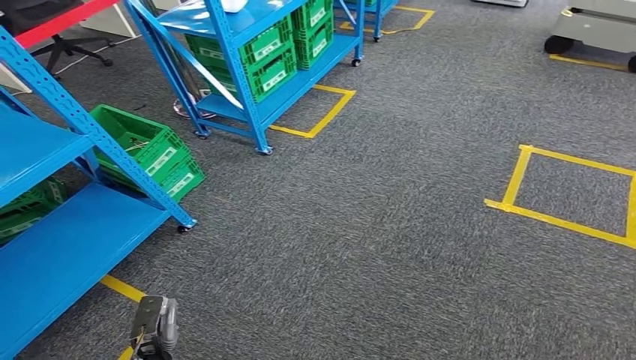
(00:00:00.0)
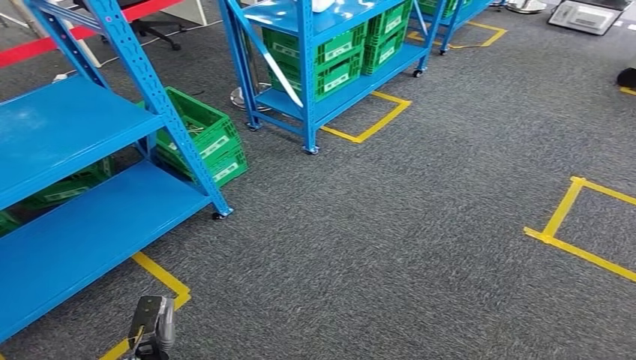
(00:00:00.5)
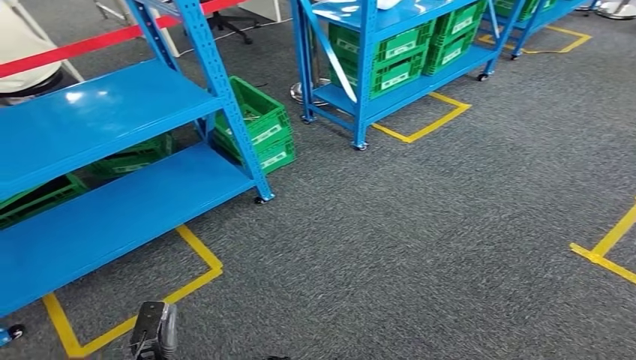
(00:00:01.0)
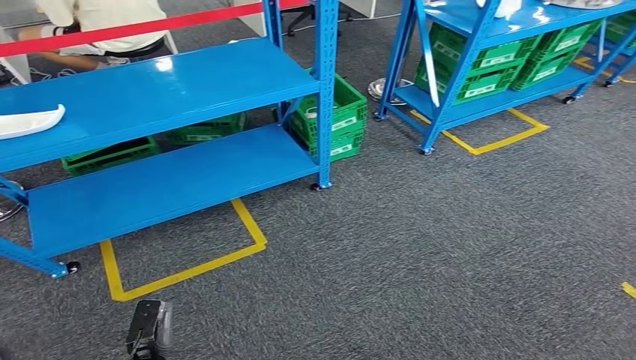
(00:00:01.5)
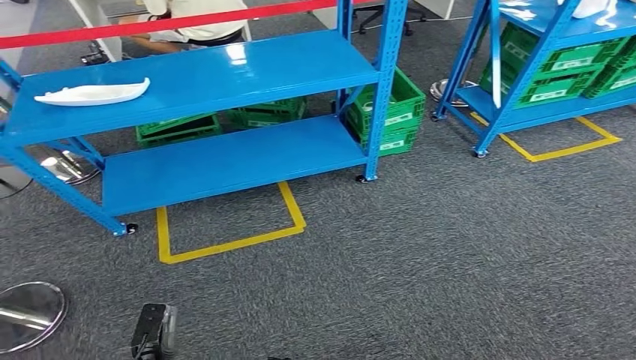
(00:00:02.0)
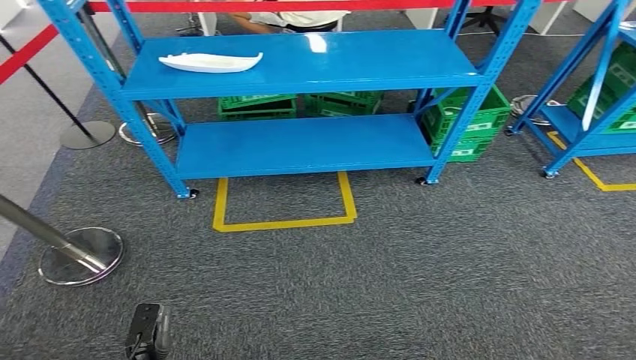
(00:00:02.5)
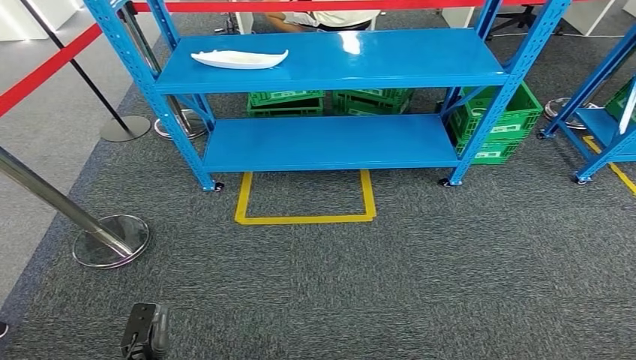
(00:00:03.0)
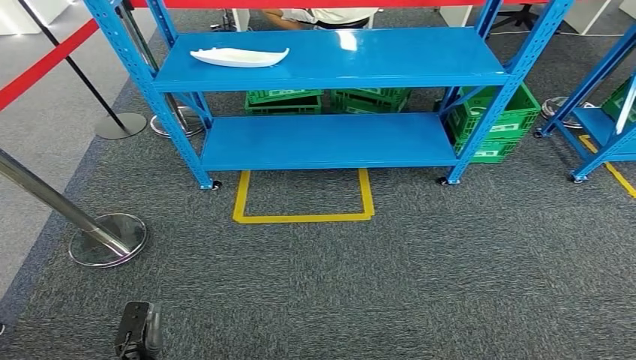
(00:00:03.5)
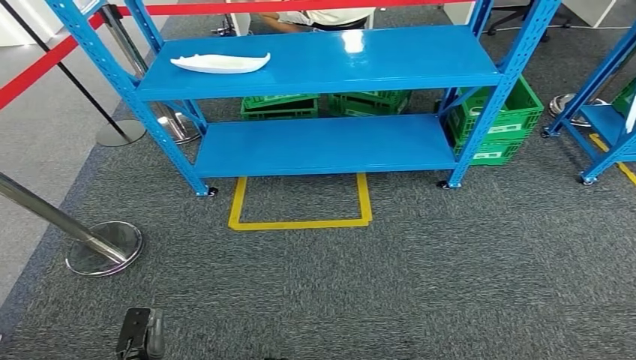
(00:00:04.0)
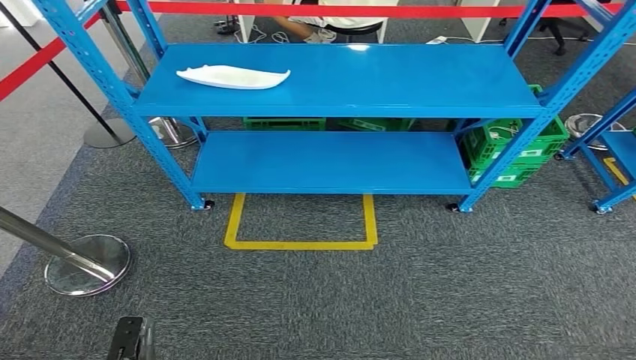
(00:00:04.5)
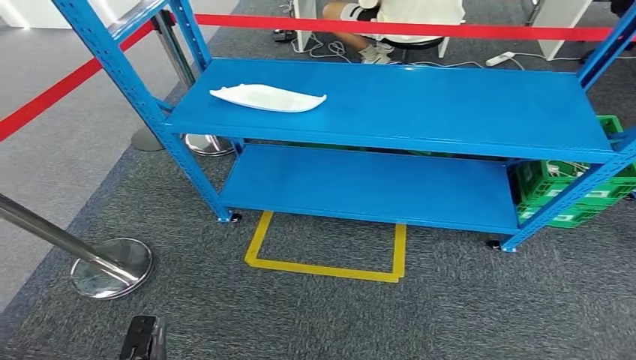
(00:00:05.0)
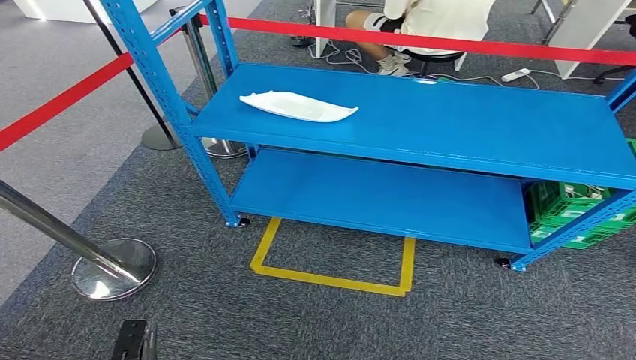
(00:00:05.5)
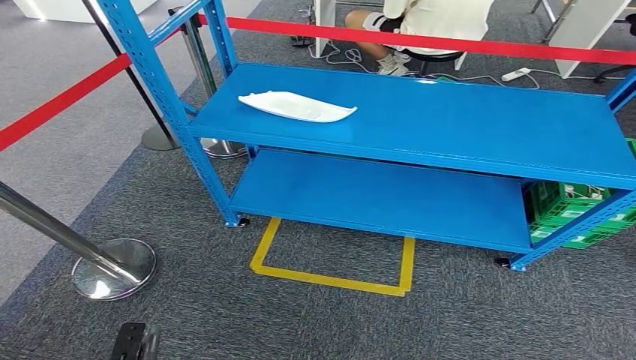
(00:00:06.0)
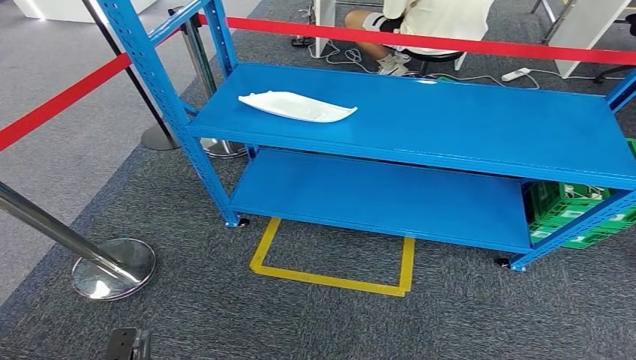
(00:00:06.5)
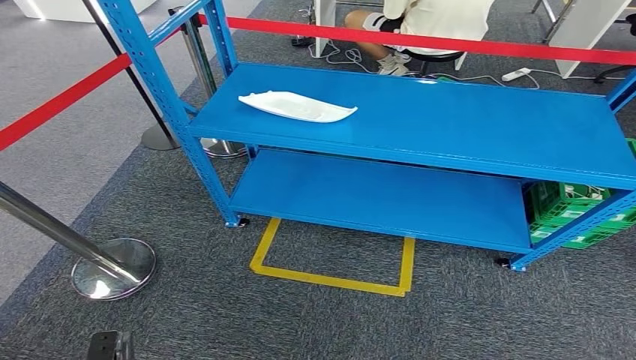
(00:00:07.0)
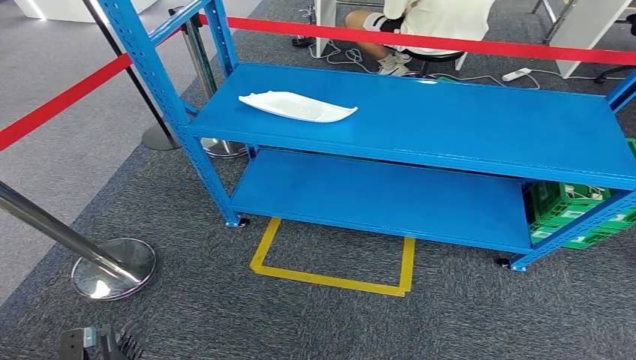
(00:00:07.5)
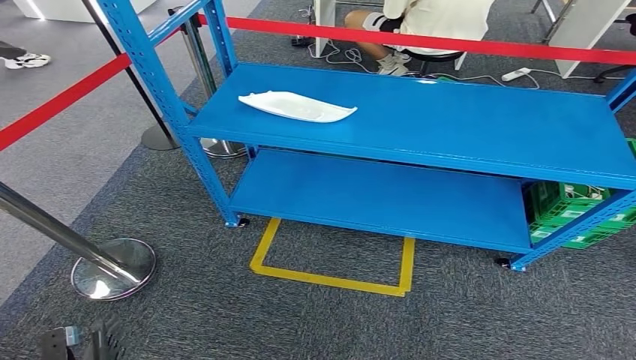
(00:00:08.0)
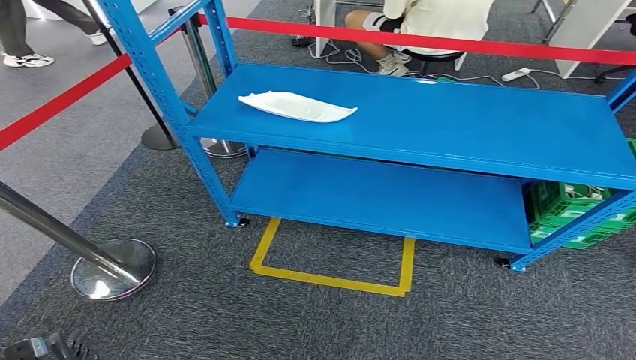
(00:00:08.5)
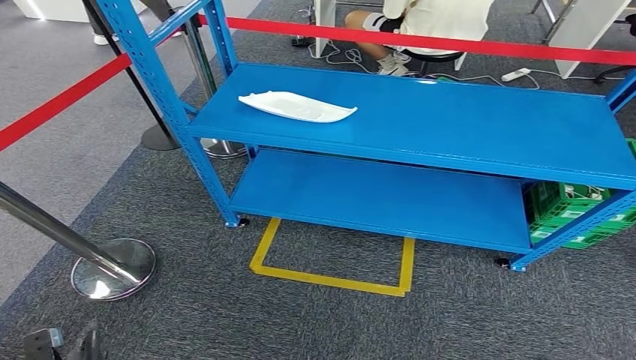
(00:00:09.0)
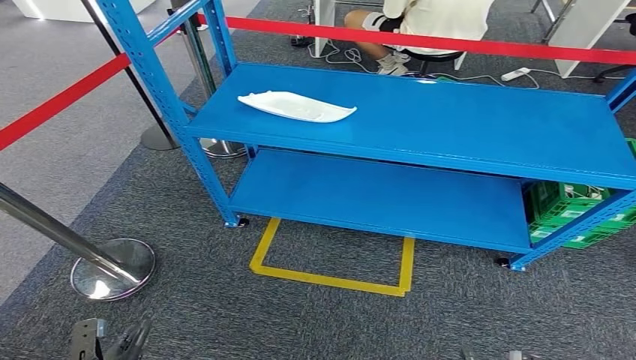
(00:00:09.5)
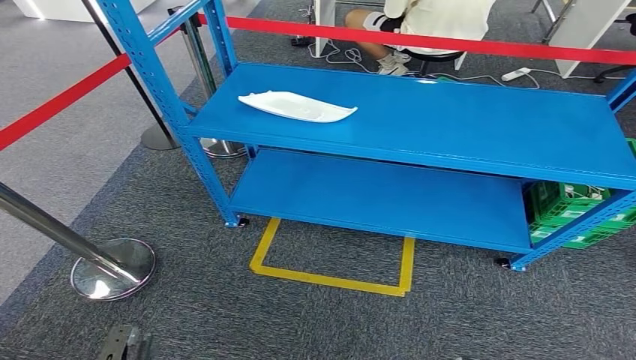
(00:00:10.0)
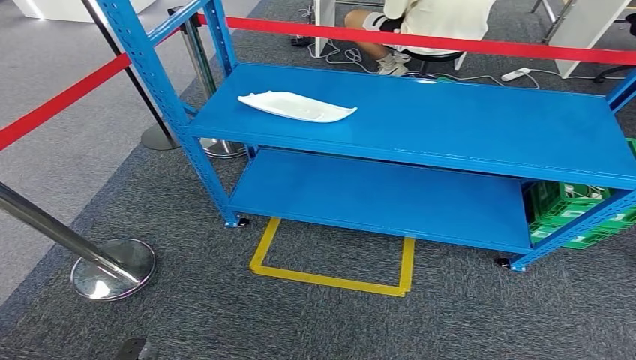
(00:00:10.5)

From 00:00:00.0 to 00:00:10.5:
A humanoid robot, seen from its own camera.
Step, from 00:00:00.0 to 00:00:10.5: Return to the initial position at the workbench.
From 00:00:06.5 to 00:00:08.5: The left hand changes place by roughly 5 cm.
From 00:00:08.5 to 00:00:10.5: The left hand moves backward, some 5 cm.
